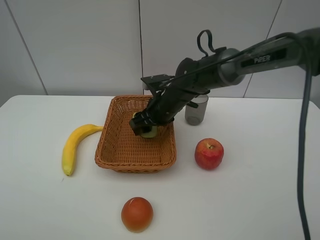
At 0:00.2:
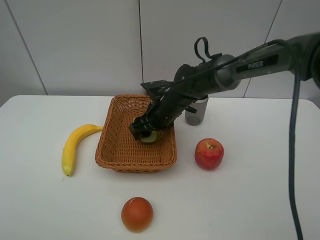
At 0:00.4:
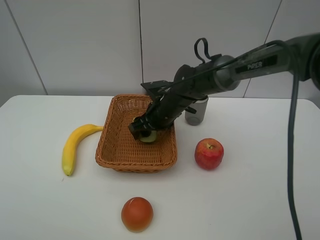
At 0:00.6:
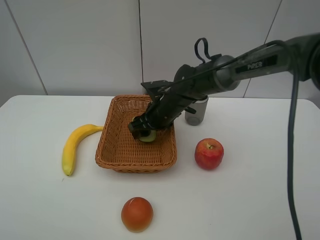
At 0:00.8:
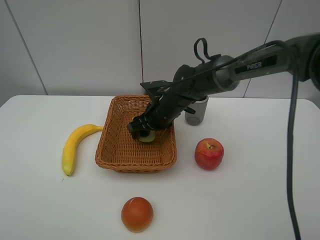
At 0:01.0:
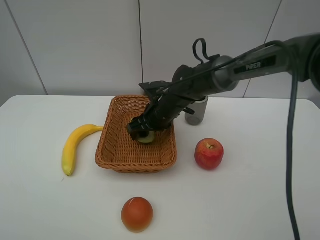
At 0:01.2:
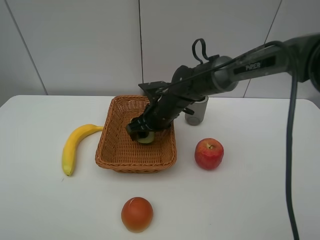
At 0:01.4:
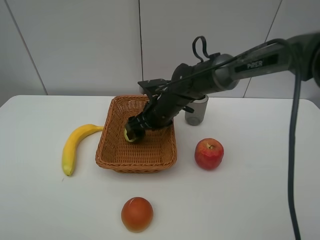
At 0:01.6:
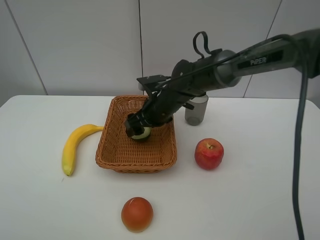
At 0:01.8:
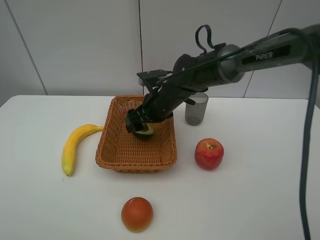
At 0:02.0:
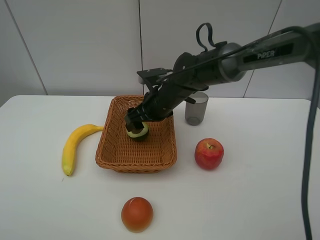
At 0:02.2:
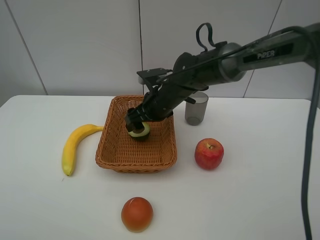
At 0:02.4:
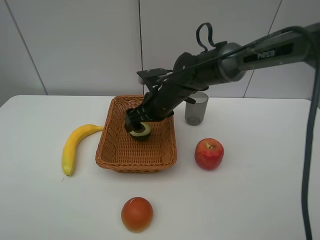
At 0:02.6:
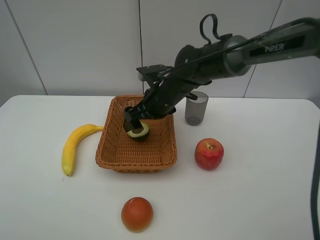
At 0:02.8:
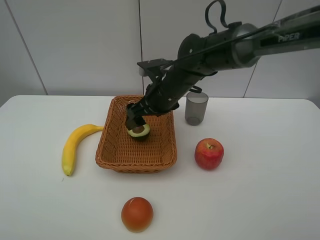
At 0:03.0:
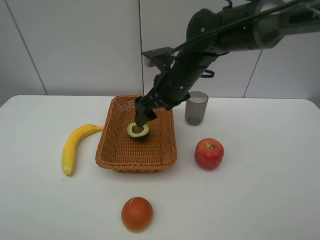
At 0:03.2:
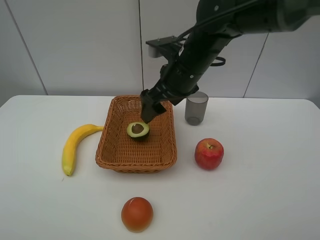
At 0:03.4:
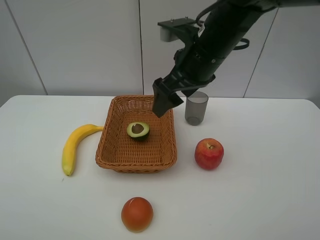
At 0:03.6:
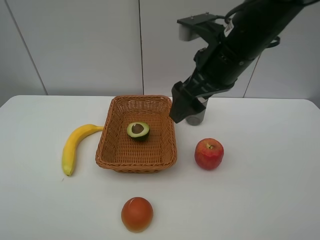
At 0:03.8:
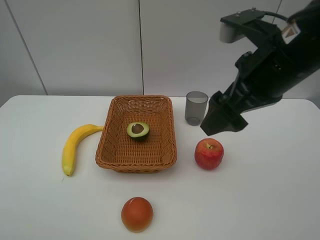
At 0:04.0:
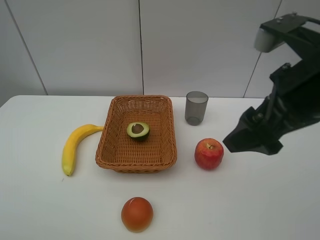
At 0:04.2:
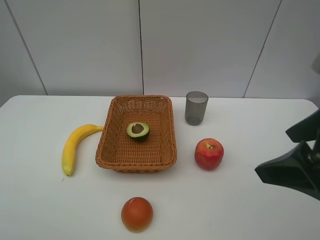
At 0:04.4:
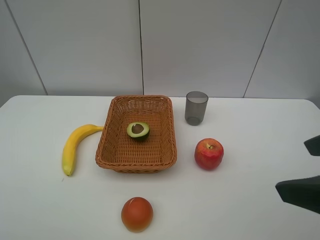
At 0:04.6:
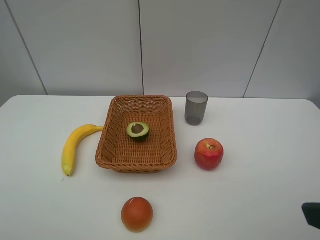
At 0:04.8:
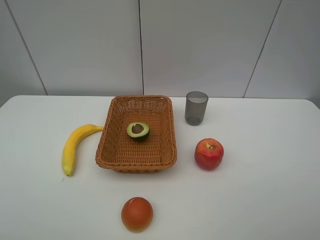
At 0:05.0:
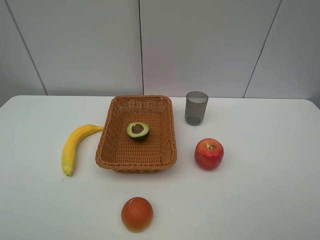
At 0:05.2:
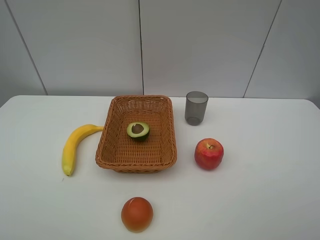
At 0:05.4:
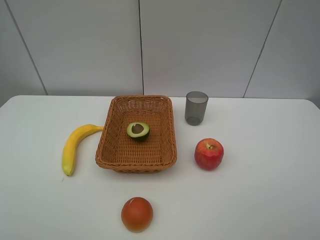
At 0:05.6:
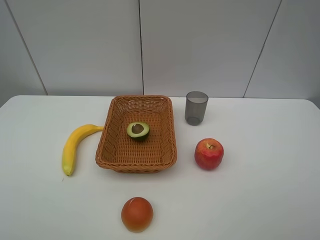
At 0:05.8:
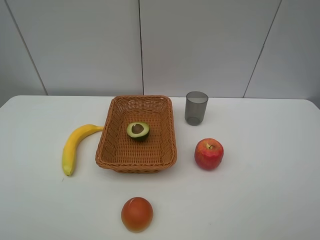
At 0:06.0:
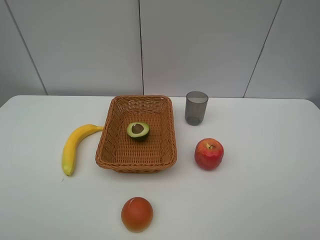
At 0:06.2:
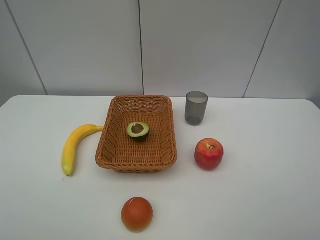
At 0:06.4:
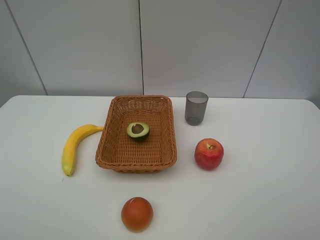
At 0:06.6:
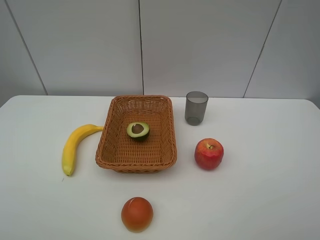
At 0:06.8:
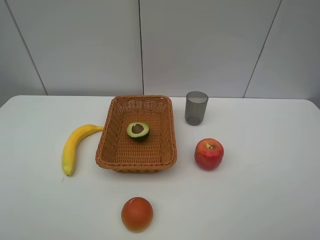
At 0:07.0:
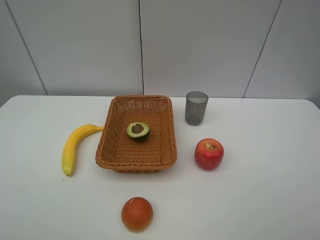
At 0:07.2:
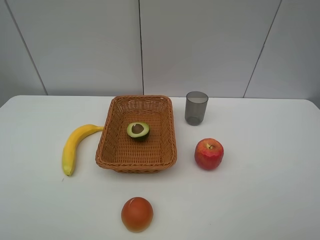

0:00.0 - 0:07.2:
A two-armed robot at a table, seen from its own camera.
0:00.0 - 0:01.4: The right gripper opens its fingers.
0:01.4 - 0:02.8: The right gripper moves upward, approximately 5 cm, and opens its fingers.
0:02.8 - 0:04.4: The right gripper travels backward, to the right and upward by roughly 35 cm.
0:04.4 - 0:05.8: The right gripper shifts some 10 cm backward and to the right.
